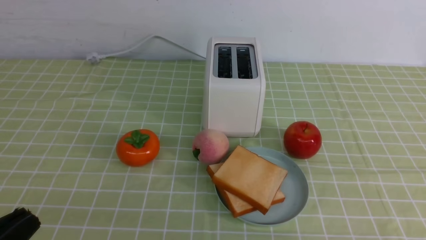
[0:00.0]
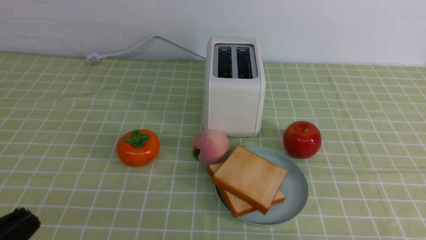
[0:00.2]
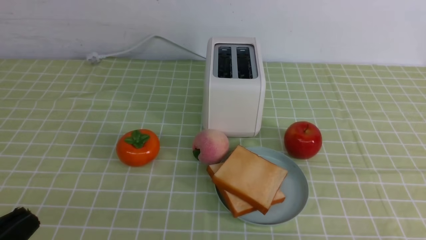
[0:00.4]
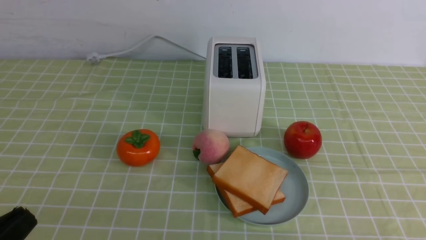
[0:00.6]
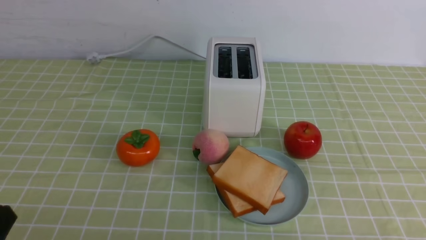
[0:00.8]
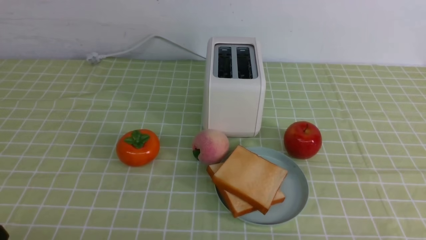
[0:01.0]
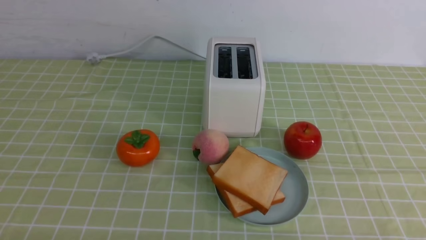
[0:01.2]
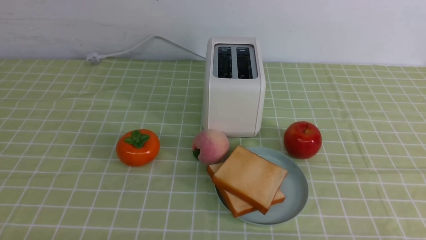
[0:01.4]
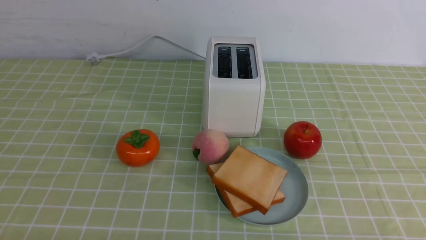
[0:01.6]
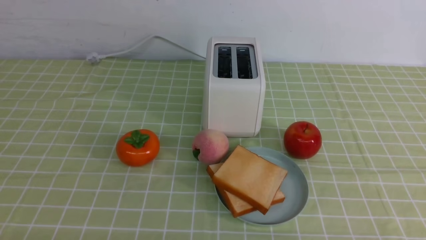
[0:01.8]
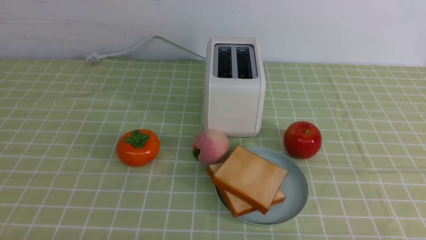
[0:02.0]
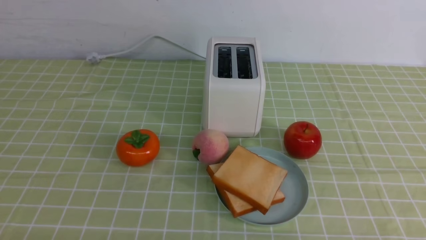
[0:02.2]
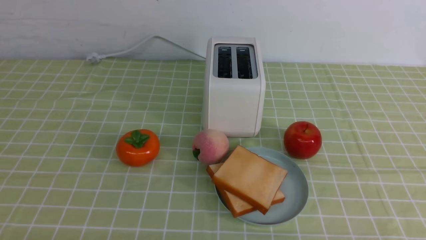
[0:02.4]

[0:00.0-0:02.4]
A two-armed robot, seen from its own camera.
Task of the whole recording: take toasted bread from bread machine on green coffee tablecloth place on plate.
0:00.0 to 0:01.2: The left gripper moves downward, some 10 cm.
0:01.2 to 0:02.4: Both grippers stay put.

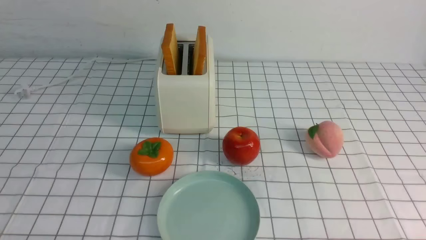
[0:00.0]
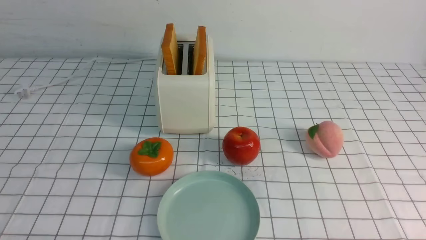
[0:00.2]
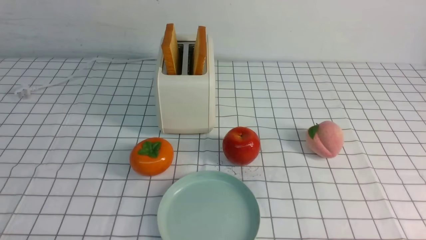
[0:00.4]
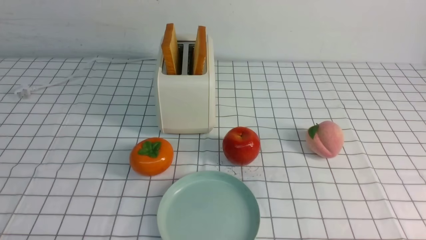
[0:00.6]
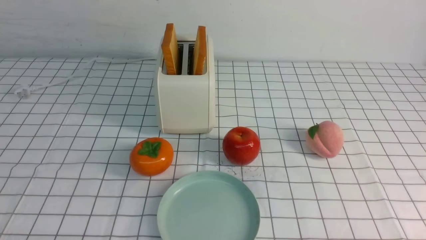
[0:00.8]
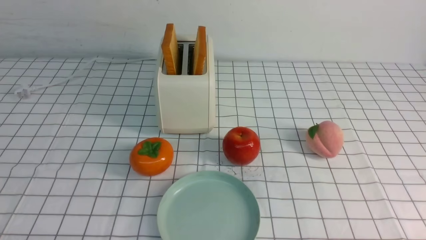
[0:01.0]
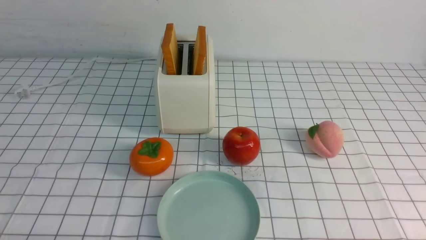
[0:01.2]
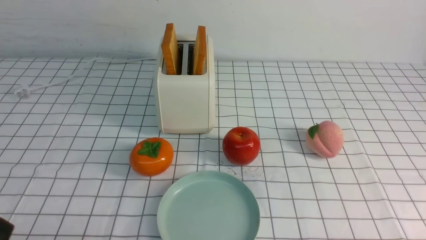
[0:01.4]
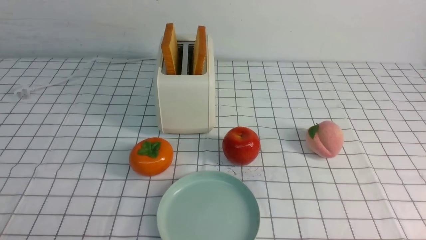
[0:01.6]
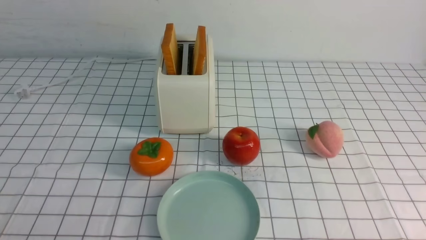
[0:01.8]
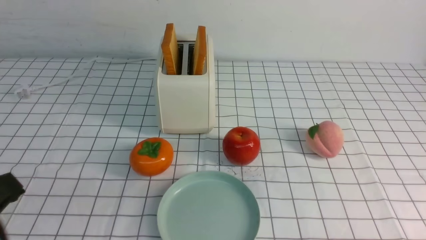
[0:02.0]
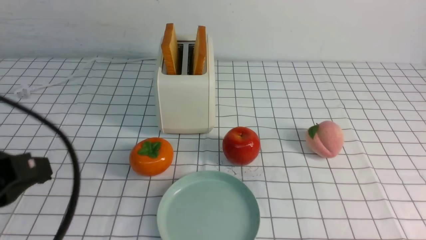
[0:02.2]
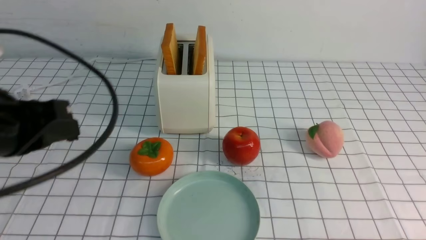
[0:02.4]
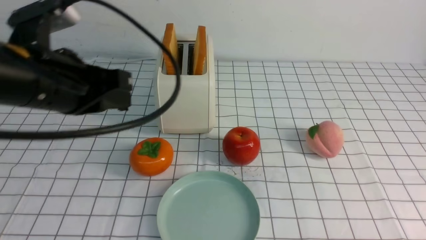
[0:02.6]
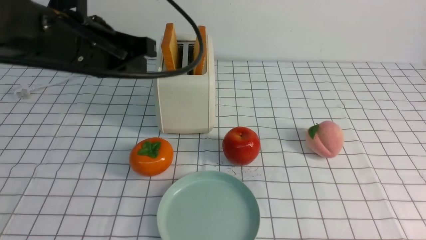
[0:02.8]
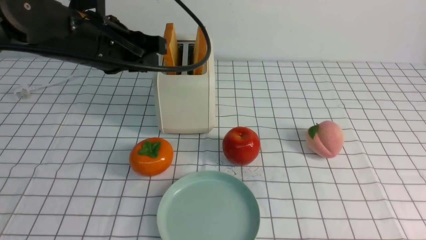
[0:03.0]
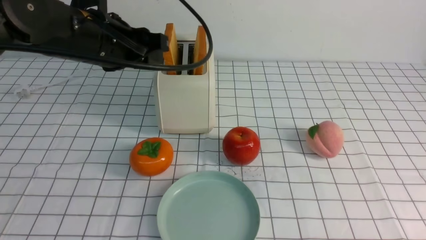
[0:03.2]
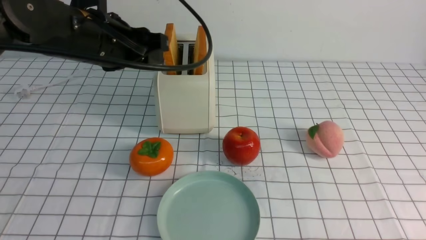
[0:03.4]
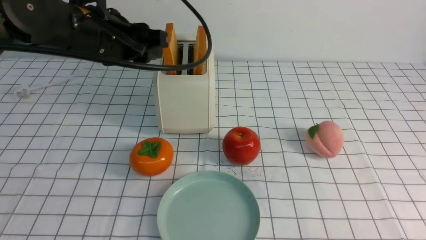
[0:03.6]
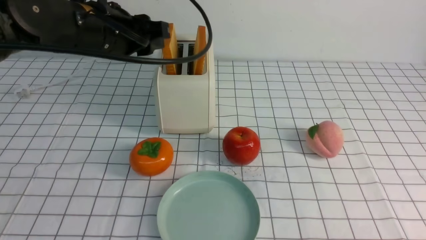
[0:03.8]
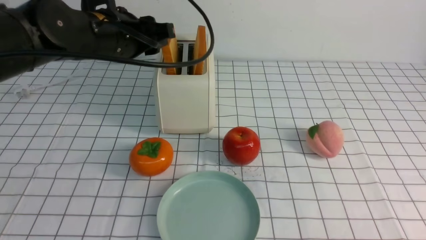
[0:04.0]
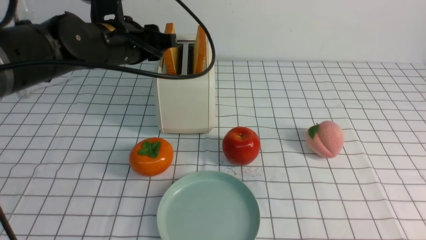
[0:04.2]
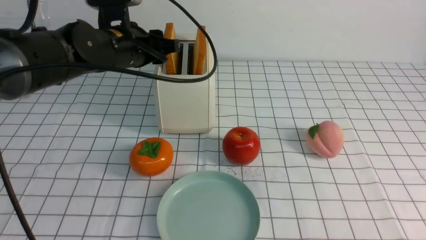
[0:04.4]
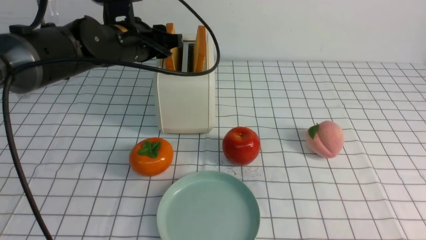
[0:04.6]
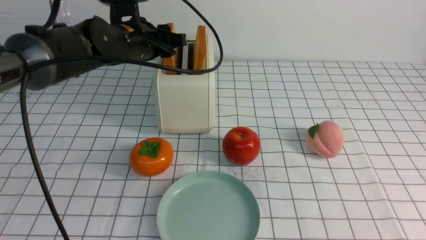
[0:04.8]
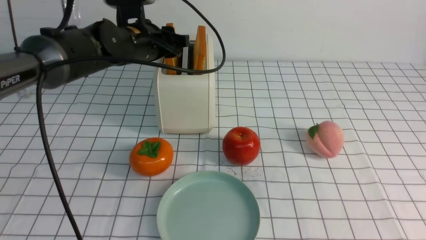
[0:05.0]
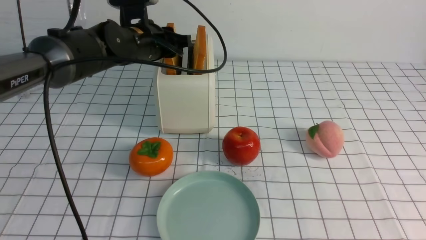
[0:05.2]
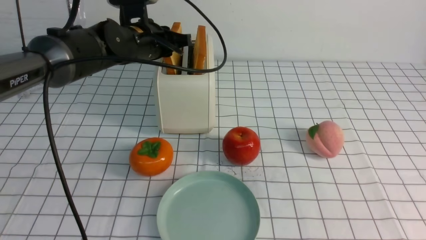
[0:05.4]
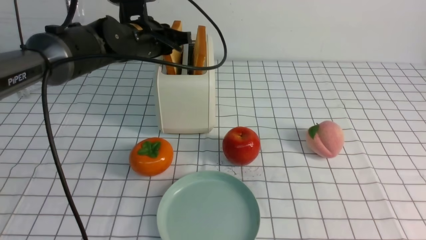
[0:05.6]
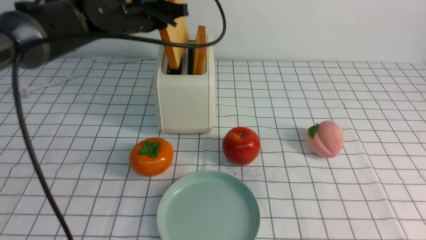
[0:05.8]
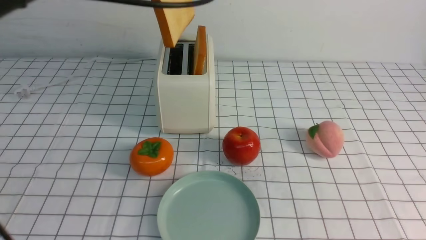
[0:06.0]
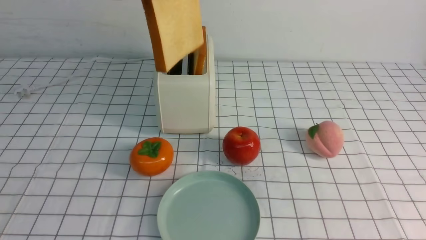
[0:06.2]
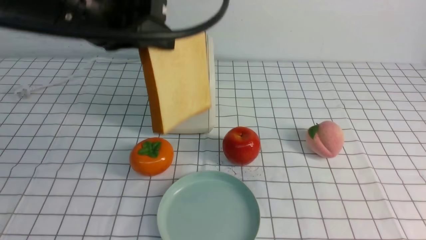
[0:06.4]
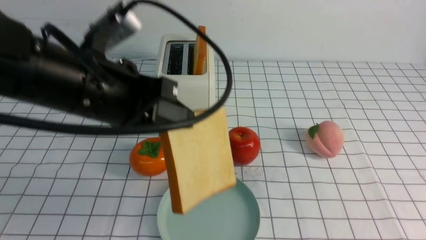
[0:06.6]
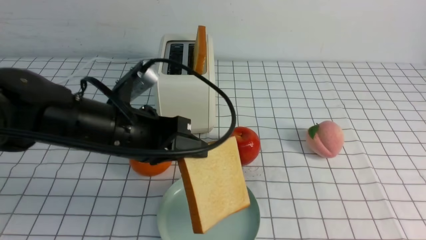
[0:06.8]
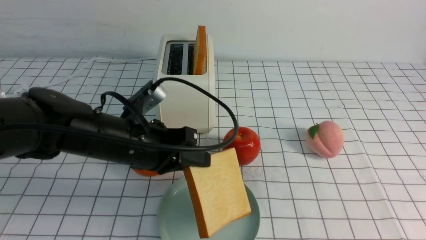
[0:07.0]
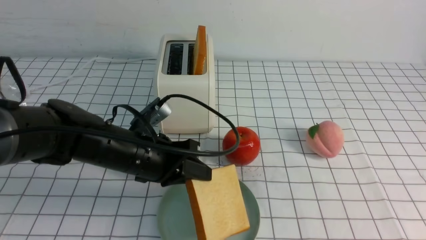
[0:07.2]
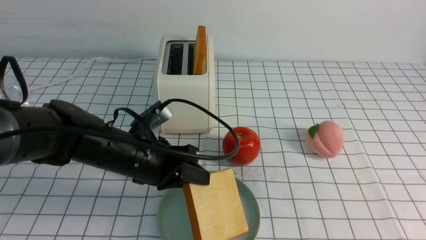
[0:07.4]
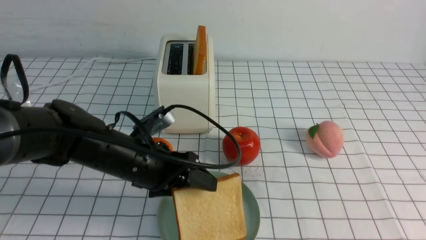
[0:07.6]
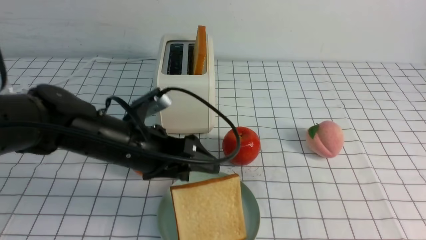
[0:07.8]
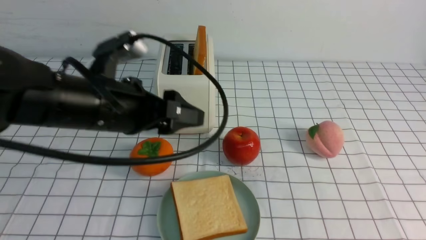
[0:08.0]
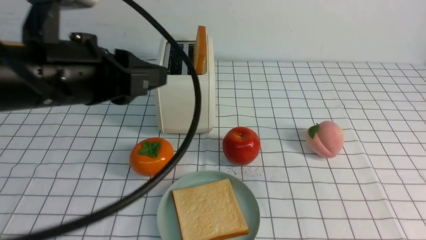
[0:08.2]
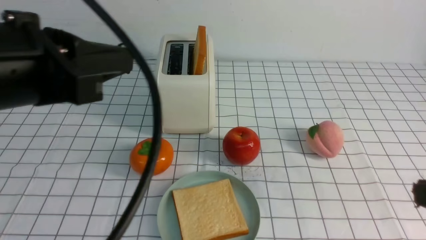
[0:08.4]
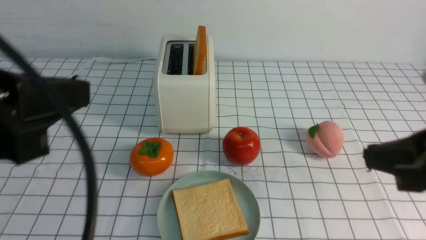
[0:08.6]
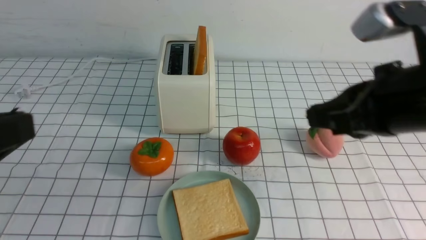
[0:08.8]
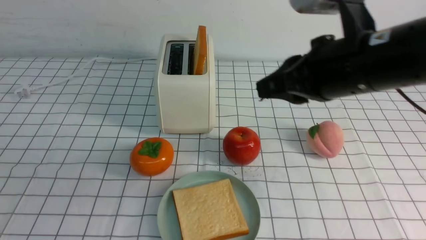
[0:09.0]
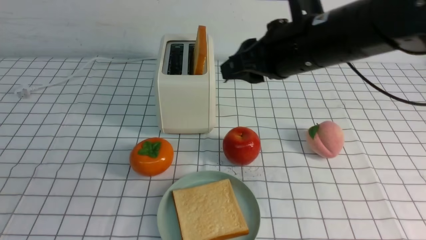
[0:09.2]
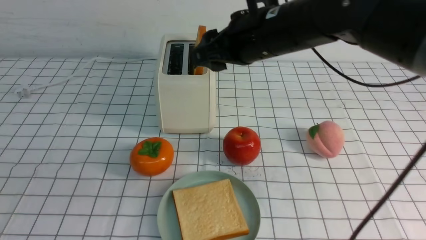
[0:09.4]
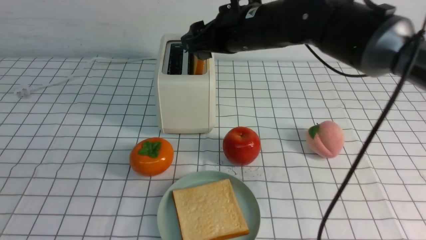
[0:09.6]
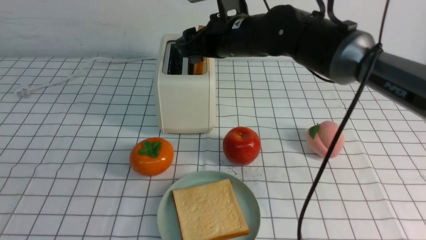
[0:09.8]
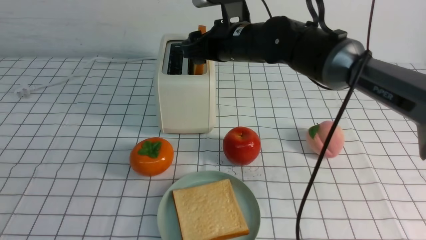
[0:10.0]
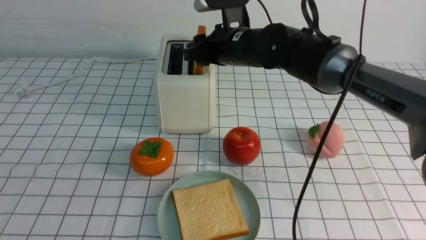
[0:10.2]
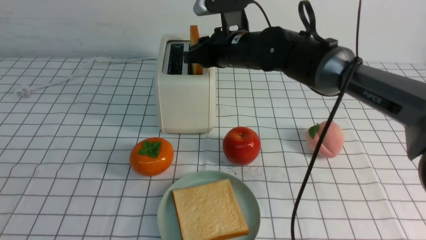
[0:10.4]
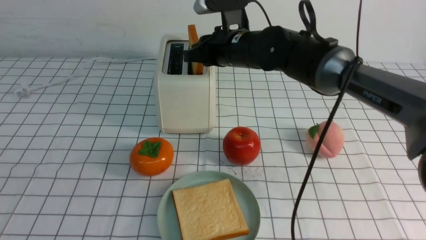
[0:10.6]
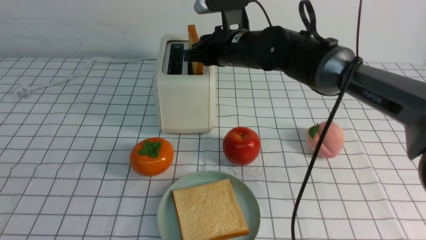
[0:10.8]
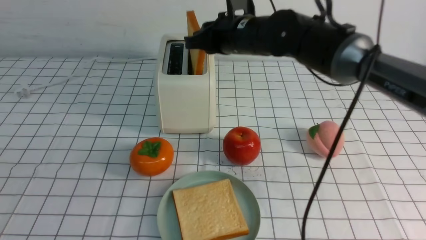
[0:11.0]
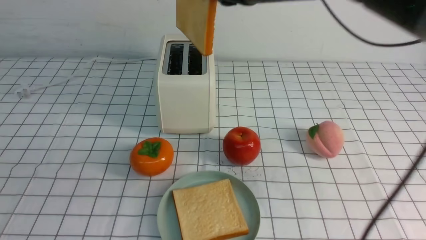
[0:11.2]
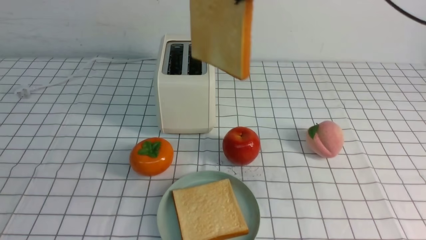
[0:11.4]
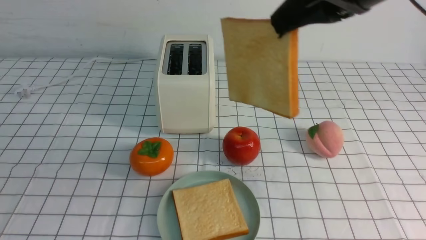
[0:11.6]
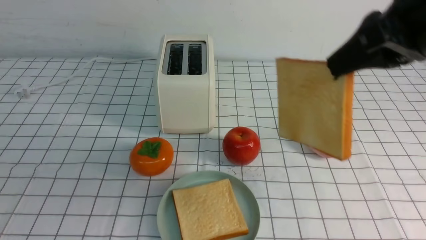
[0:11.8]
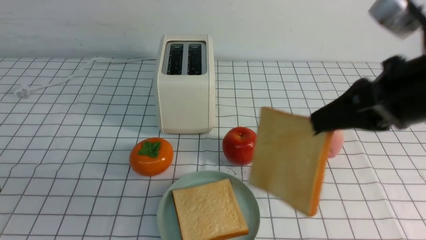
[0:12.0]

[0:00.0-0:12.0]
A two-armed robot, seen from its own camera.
Task of the whole recording: take toasted bread from bread machine on white checkered table place on plate.
Step, 0:00.0 to 0:05.8: use the left arm to take out a slice of bread.
Step, 0:06.0 to 0:07.8: use the left arm to put a slice of bread into the empty plate.
Step, 0:08.0 to 0:11.0: use the right arm to take out a slice of bread.
0:01.6 to 0:03.0: The left gripper is displaced forward and upward by about 30 cm, and closes and opens again.
0:03.0 to 0:04.4: The left gripper goes about 10 cm forward; the right gripper travels upward by some 5 cm.
0:04.4 to 0:06.0: The grippers both shift upward by some 10 cm. The left gripper closes.
0:06.0 to 0:07.6: The left gripper moves downward and backward, roughly 20 cm, and opens.
0:07.6 to 0:09.0: The right gripper is displaced forward and to the left by some 25 cm. Meanwhile the left gripper shifts some 30 cm backward, upward and to the left, and closes its fingers.
0:09.0 to 0:10.4: The right gripper is displaced forward, to the left and downward by about 25 cm, and opens, then closes once more.
0:10.4 to 0:12.0: The right gripper moves backward and to the right, about 25 cm.

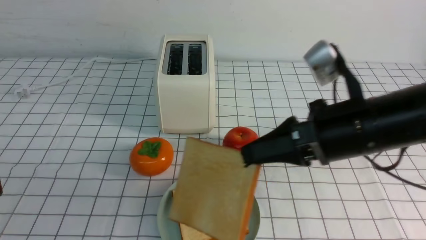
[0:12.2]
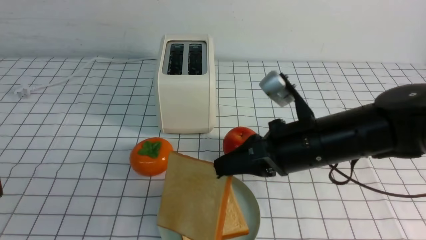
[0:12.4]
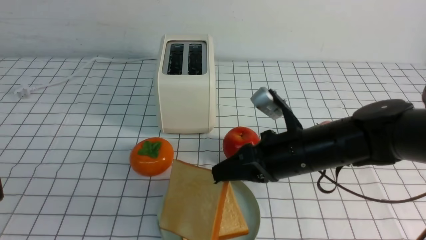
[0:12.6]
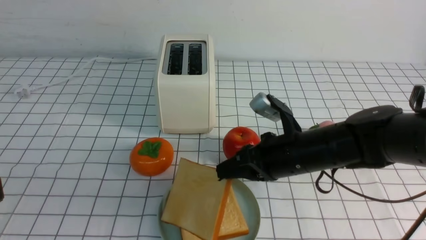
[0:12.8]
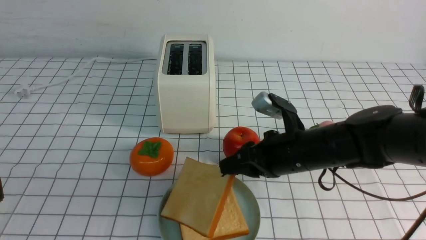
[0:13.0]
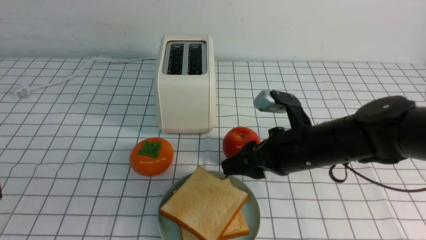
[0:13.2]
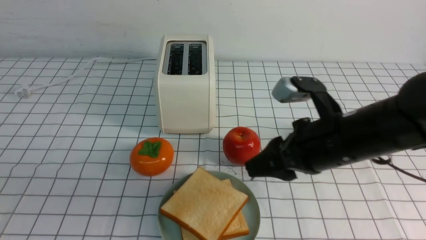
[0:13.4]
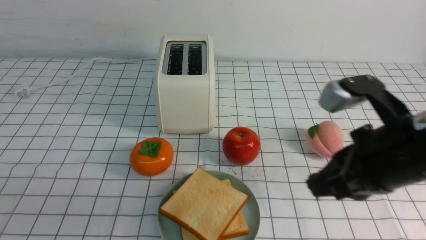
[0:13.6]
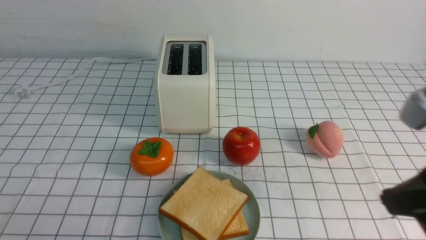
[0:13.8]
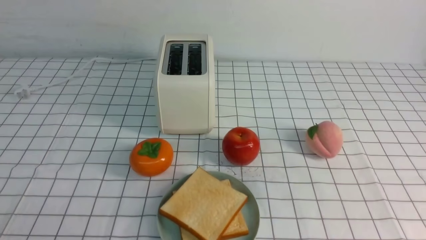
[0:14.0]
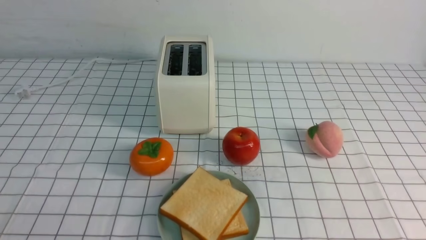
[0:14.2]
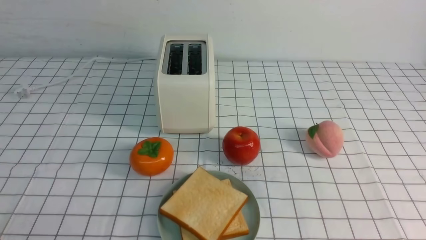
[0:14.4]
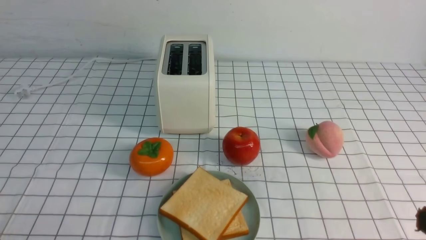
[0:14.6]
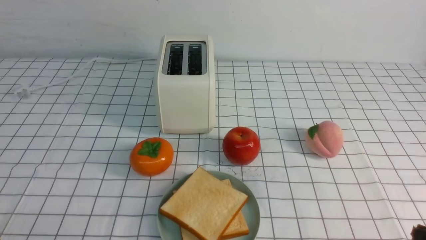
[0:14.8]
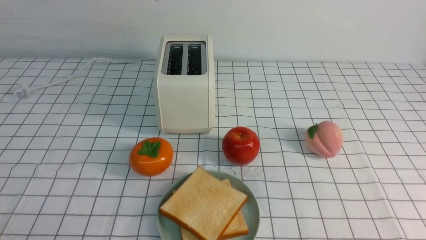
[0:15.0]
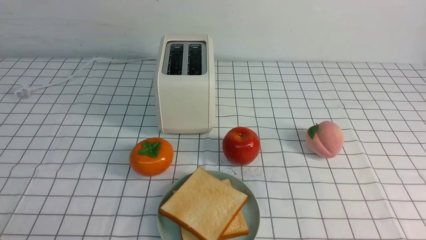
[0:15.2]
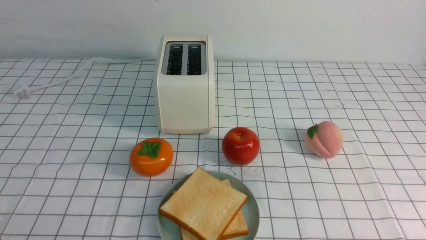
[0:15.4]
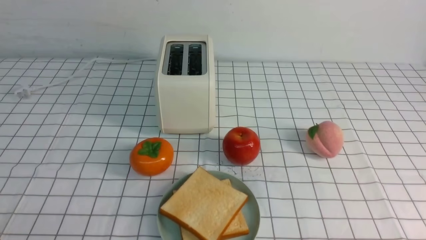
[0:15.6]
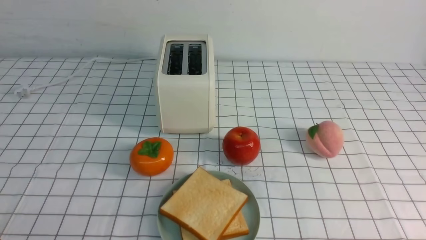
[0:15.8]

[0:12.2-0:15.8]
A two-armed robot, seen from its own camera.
Task of the whole recording: take toasted bread from bread machine on white checkered table place on plate.
Step, 0:12.2 to 0:13.4: use the right arm to put a slice of bread into the plate.
0:12.2 to 0:14.0: The left gripper shifts about 5 cm downward; the right gripper shifts some 20 cm backward and to the right, and opens, then closes once more.
